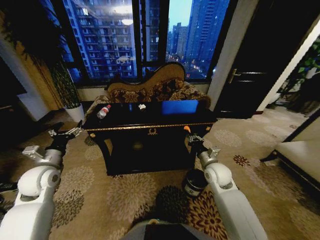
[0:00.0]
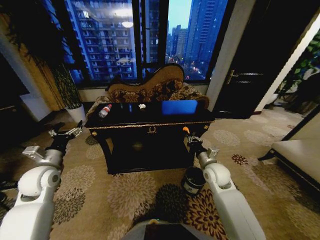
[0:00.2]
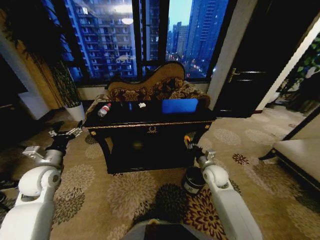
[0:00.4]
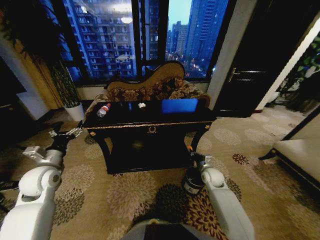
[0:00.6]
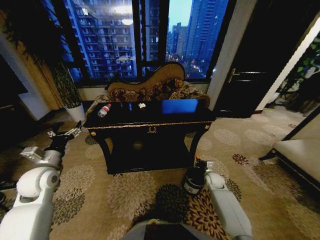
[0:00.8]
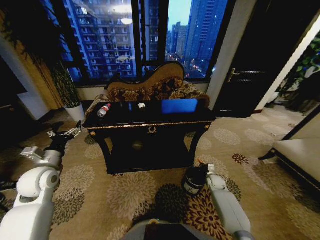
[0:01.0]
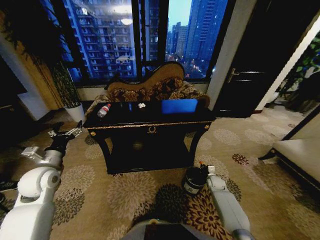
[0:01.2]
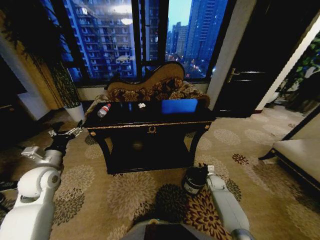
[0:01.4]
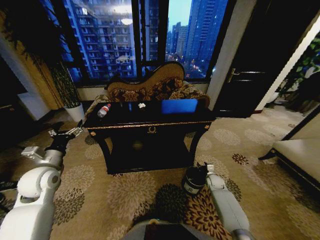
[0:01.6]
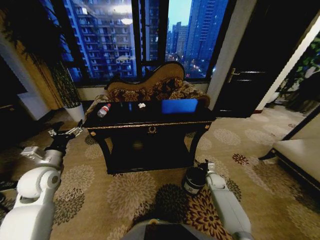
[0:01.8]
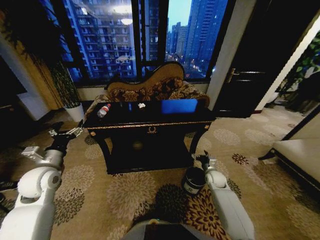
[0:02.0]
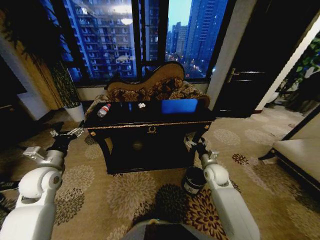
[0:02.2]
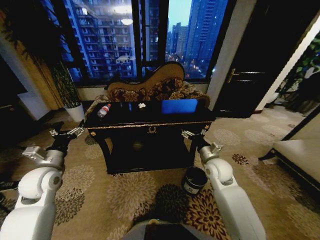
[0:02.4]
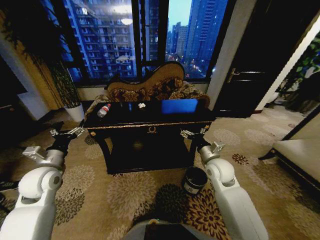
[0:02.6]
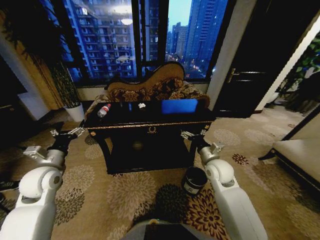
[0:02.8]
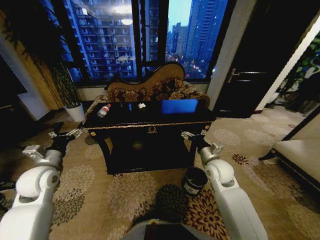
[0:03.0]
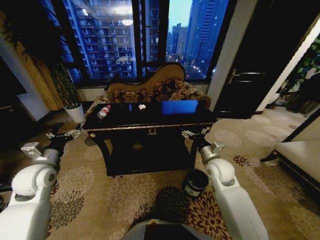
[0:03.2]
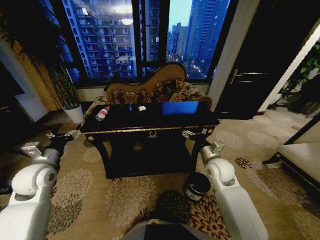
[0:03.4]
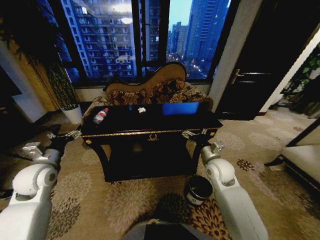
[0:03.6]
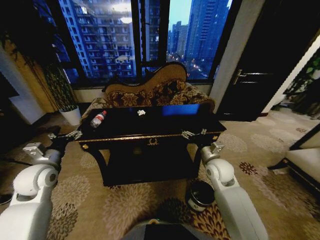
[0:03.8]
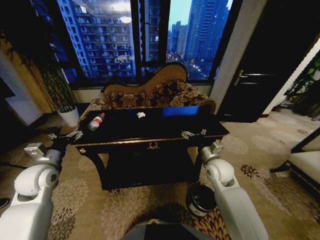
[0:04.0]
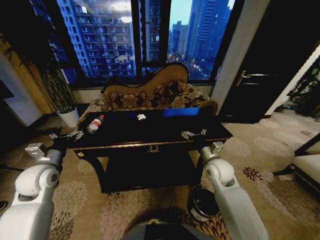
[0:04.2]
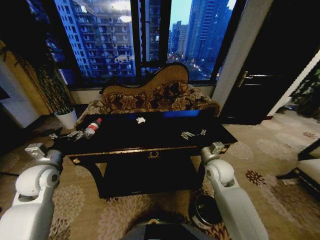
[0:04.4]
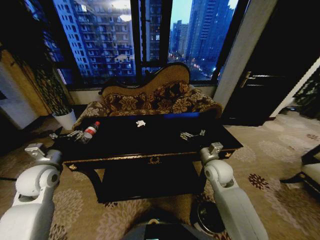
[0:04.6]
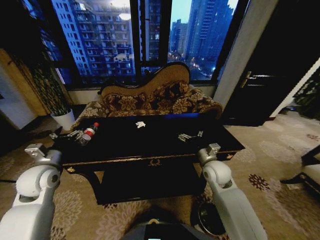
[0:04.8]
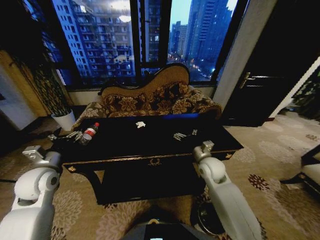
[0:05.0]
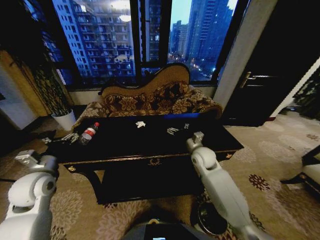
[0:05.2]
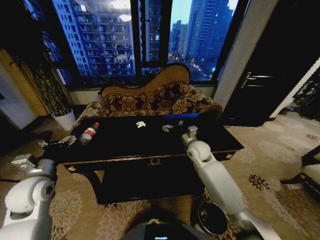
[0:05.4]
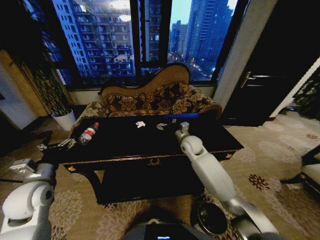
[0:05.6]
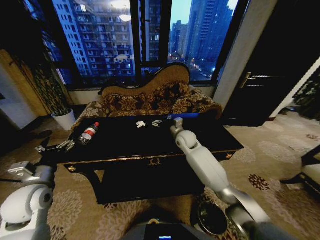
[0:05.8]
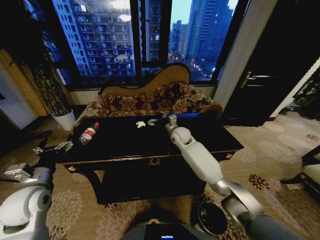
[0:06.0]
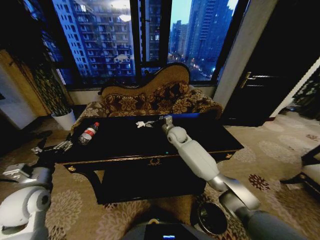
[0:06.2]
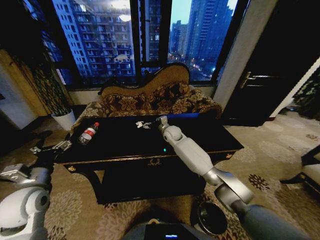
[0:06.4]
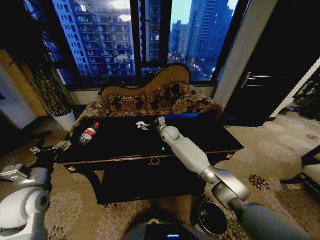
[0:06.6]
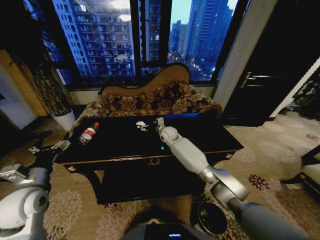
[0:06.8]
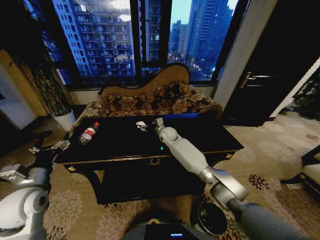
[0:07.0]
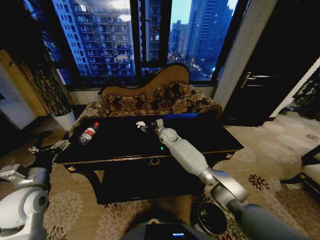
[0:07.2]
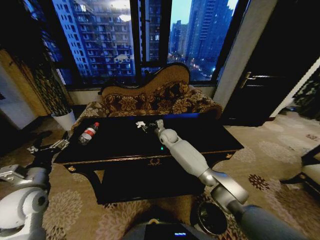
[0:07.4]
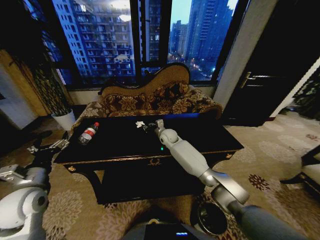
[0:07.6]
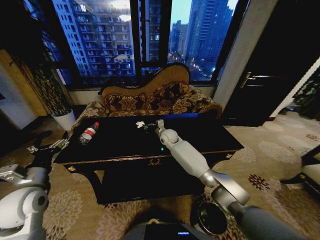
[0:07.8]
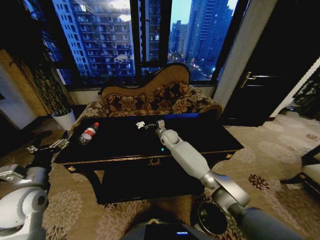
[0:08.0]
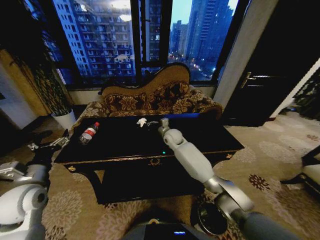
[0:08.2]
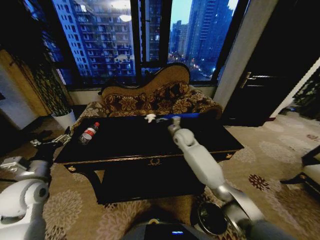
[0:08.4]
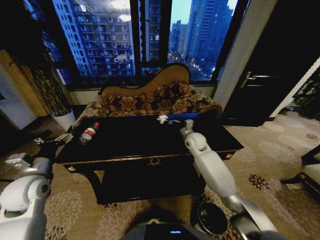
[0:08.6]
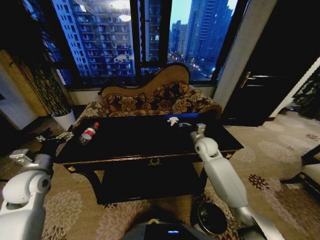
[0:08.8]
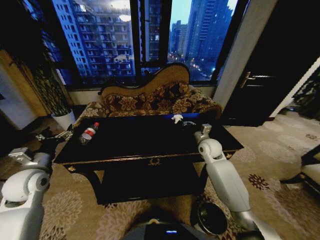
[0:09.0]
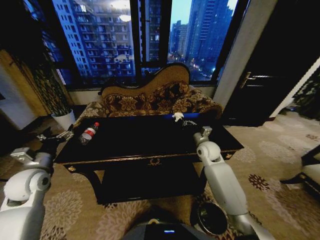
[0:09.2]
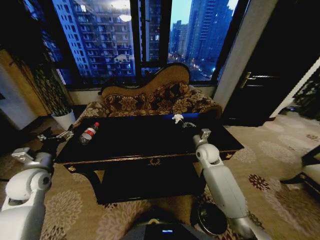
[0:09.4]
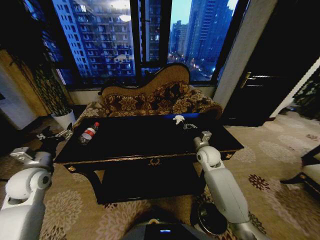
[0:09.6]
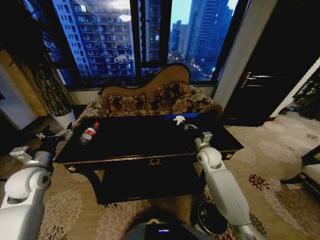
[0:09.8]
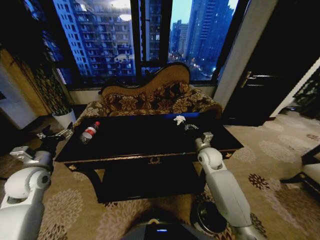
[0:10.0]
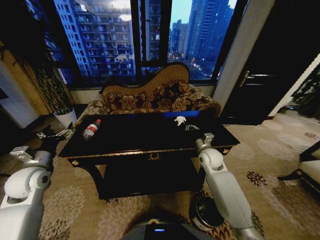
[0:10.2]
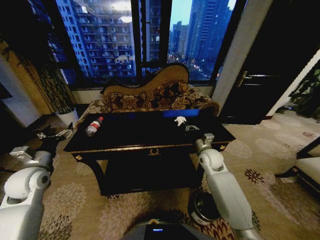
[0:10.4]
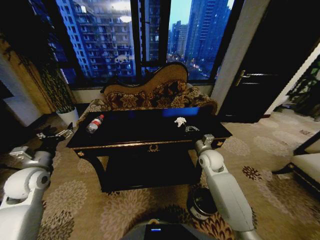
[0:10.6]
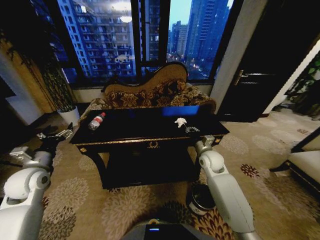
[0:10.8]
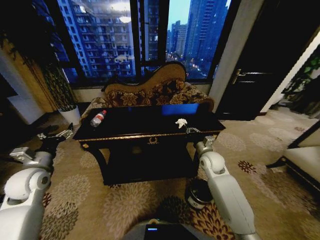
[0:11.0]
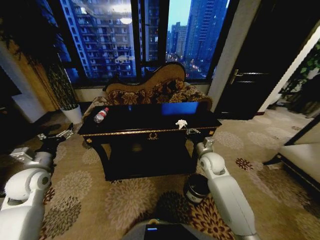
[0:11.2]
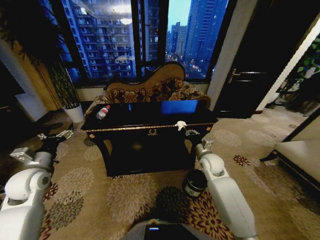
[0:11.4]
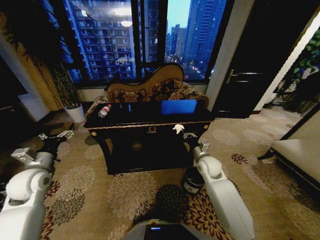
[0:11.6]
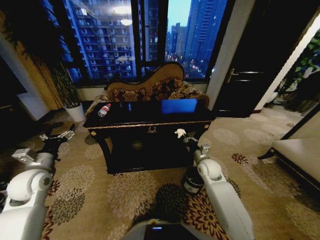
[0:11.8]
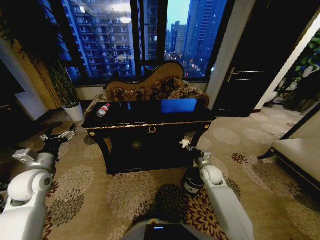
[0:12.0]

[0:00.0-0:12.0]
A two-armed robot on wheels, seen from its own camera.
Task of the whole recording: Move to the front of the table and place the trash on the table into the trash bin.
0:00.0 to 0:01.6: The right gripper is displaced downward and to the right by about 25 cm, and opens up.
0:01.6 to 0:03.0: The right gripper travels upward and to the left by approximately 30 cm, and opens up.
0:04.4 to 0:06.0: The right gripper travels forward and to the left by some 20 cm; the left gripper heads backward, covering some 5 cm.
0:06.0 to 0:07.6: The right gripper travels to the left by approximately 5 cm, and closes.
0:07.6 to 0:09.0: The left gripper moves forward, roughly 5 cm, while the right gripper travels to the right and backward by some 20 cm.
0:10.4 to 0:12.0: The right gripper is displaced downward by roughly 10 cm.

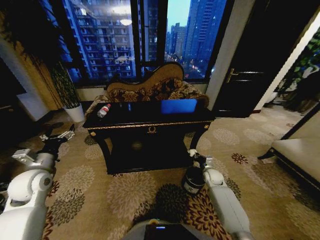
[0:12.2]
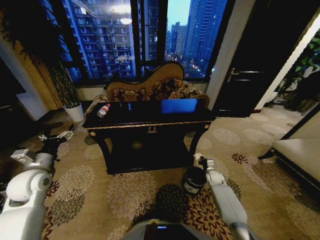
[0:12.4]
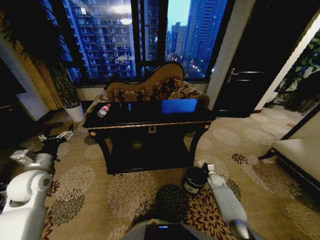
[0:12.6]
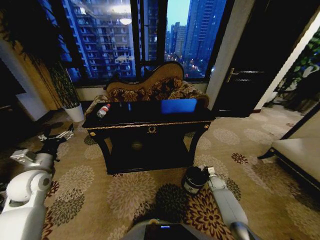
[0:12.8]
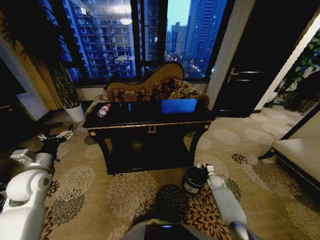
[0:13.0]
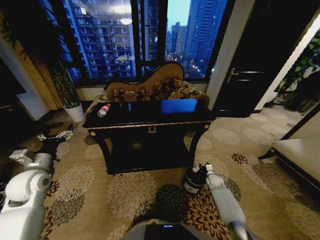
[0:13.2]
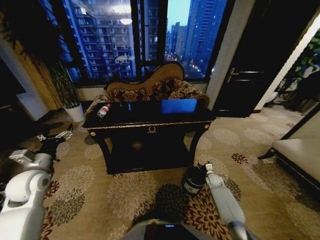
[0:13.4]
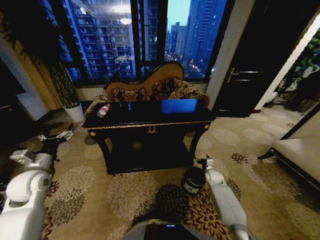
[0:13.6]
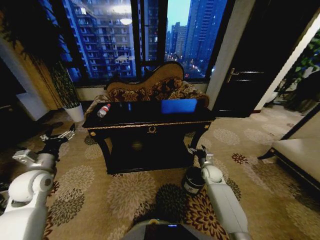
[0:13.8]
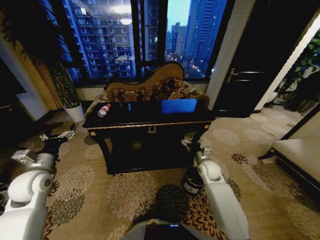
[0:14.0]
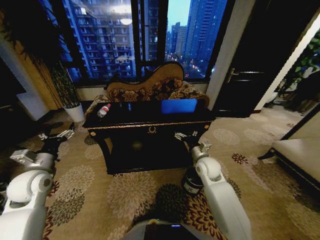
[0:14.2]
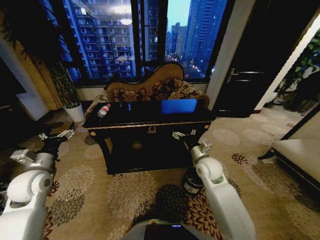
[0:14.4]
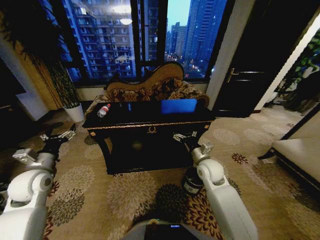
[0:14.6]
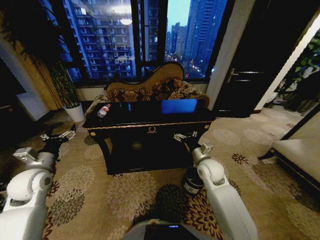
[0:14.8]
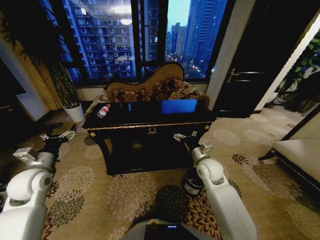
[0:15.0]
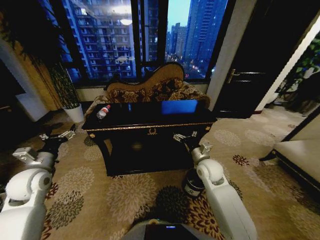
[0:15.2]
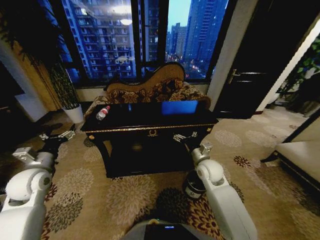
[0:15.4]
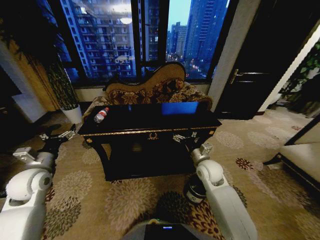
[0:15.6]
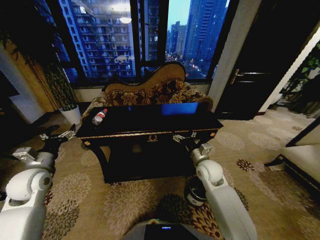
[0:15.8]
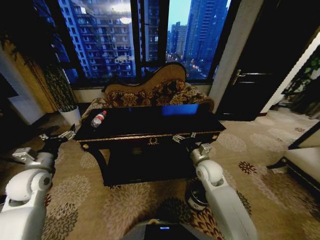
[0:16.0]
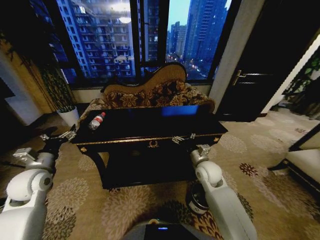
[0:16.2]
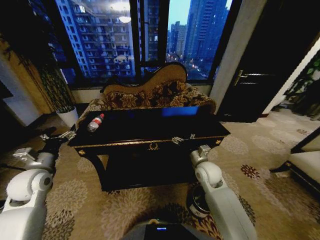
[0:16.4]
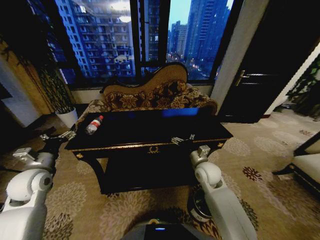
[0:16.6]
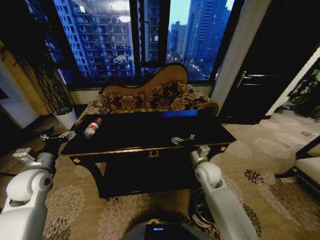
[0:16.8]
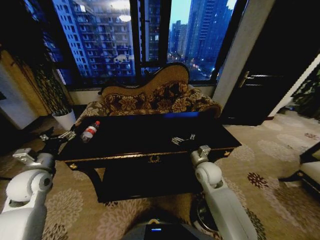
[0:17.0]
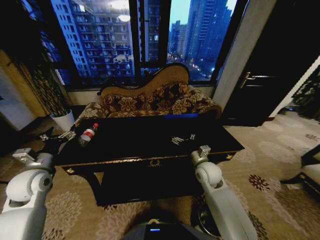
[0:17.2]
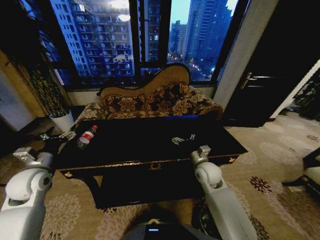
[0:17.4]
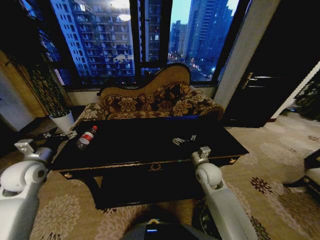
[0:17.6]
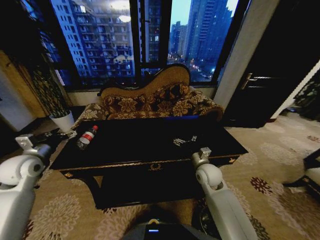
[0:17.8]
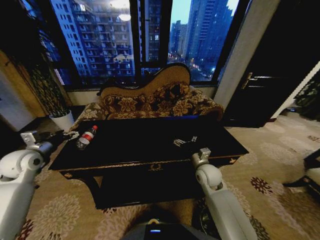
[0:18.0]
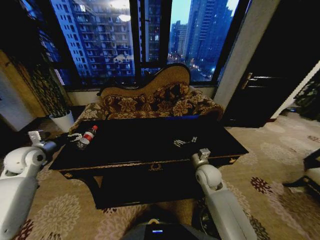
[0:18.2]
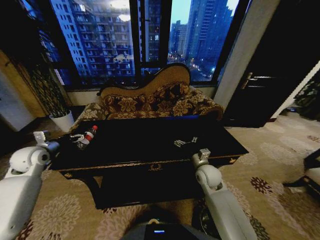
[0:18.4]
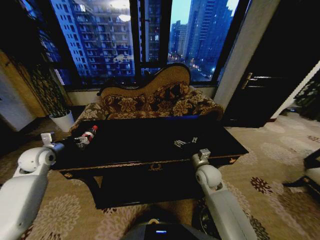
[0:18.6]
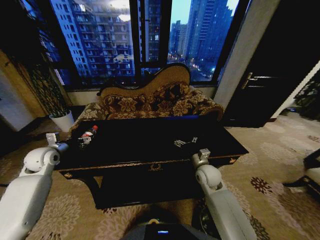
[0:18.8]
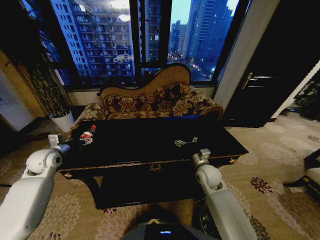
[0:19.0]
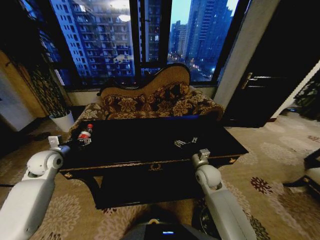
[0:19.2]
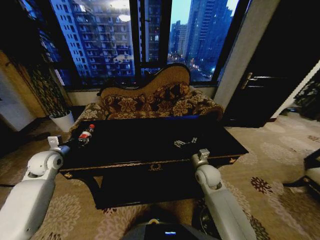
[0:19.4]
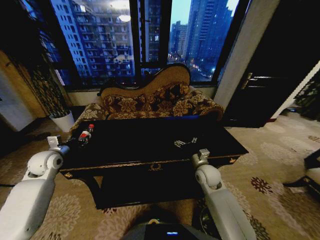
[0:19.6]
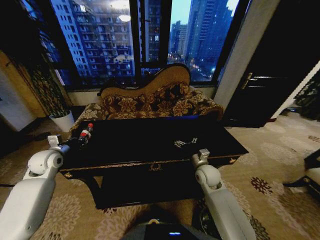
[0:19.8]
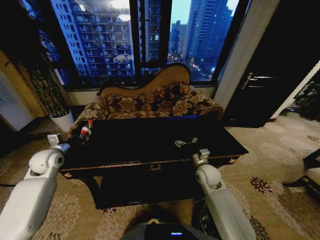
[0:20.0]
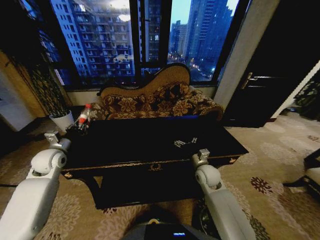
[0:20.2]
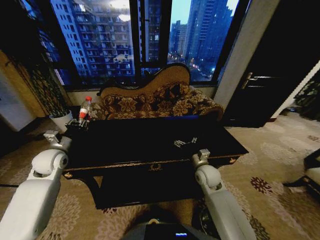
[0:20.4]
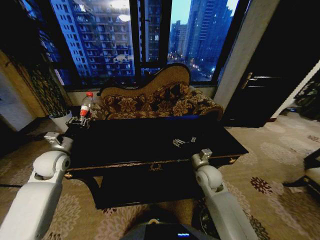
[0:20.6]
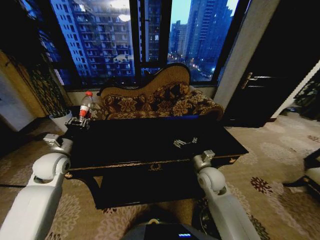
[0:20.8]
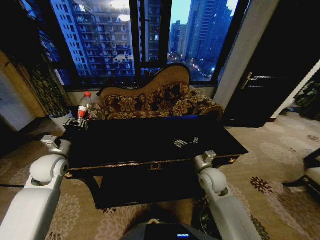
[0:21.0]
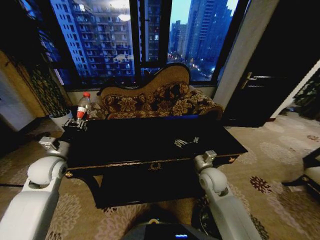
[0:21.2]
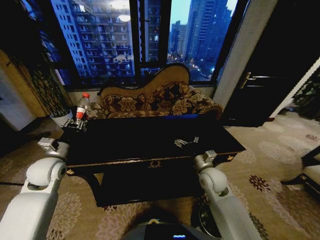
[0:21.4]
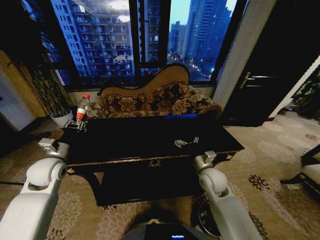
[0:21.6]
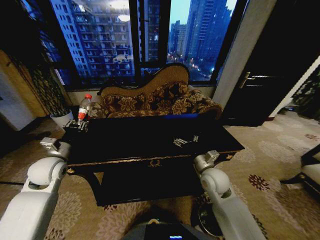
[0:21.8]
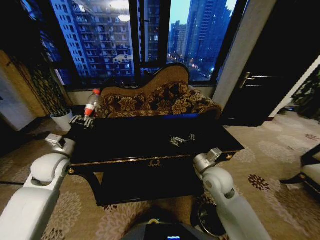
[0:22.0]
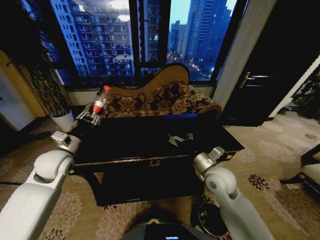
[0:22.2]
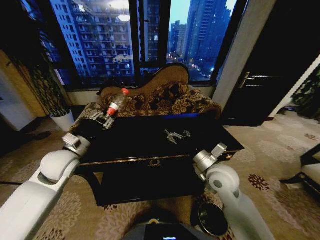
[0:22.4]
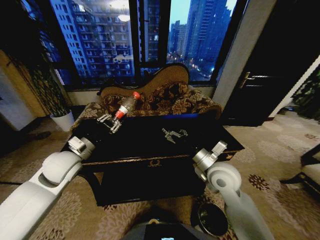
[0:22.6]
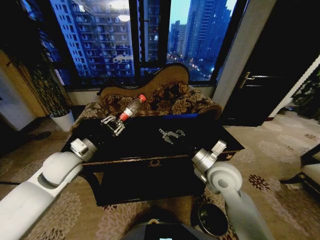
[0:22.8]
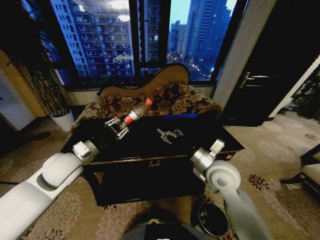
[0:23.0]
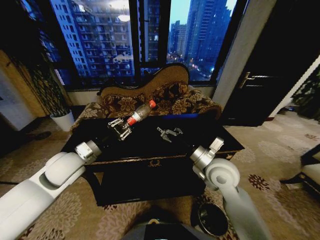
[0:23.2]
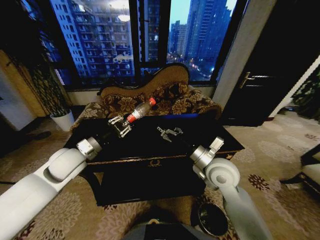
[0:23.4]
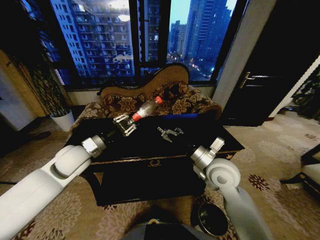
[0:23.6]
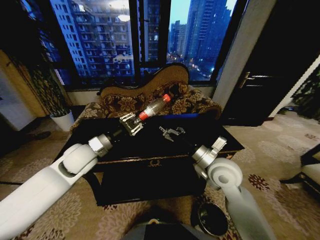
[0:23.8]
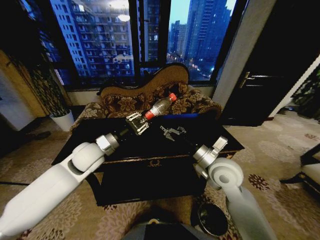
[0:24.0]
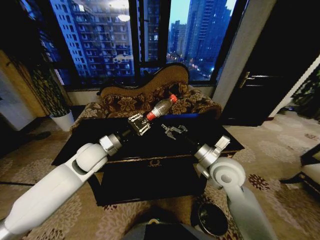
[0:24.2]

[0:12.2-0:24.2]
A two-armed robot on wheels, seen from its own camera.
Task of the whole recording: Move to the front of the table and place the trash on the table into the trash bin.
0:12.2 to 0:13.8: The right gripper moves roughly 10 cm downward and comes back, and opens up.
0:13.8 to 0:15.2: The right gripper is displaced upward and to the left by roughly 15 cm.
0:16.6 to 0:18.2: The left gripper goes some 10 cm forward and to the left.
0:18.2 to 0:19.8: The left gripper shifts by about 5 cm, and closes up.
0:19.8 to 0:21.2: The left gripper travels to the right by some 5 cm.
0:21.2 to 0:22.6: The right gripper moves upward, some 10 cm. The left gripper goes some 10 cm to the right.
0:22.6 to 0:24.2: The left gripper travels to the right by about 10 cm.
